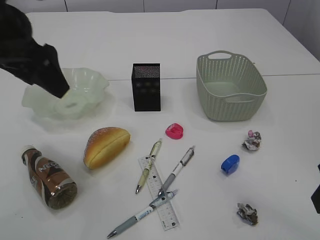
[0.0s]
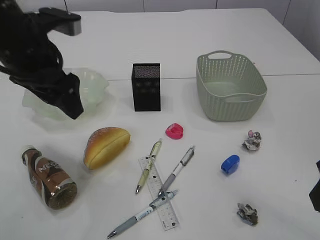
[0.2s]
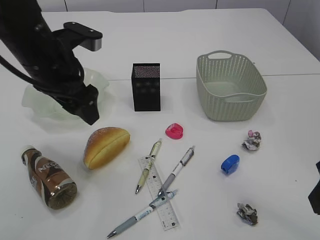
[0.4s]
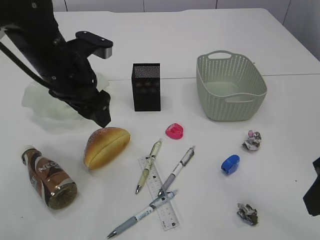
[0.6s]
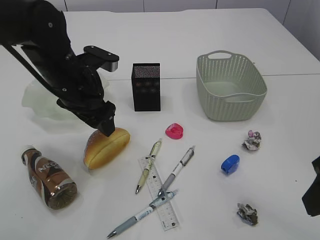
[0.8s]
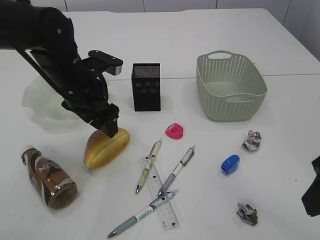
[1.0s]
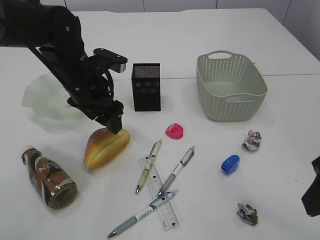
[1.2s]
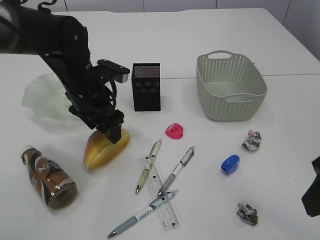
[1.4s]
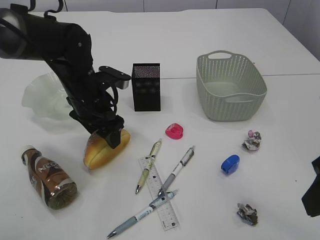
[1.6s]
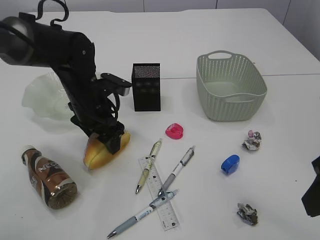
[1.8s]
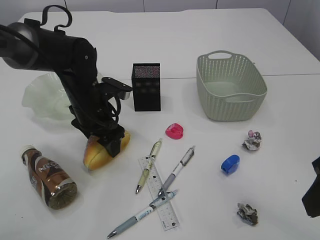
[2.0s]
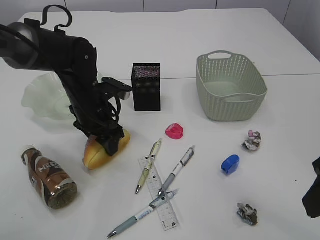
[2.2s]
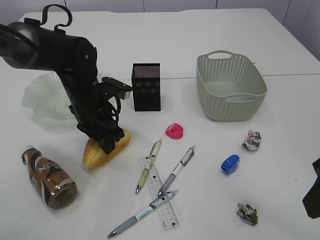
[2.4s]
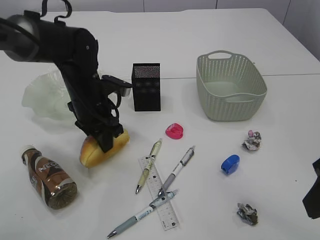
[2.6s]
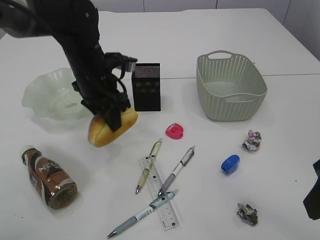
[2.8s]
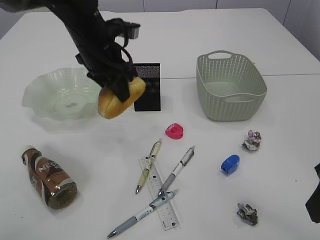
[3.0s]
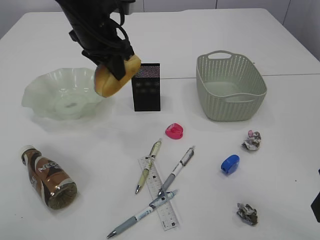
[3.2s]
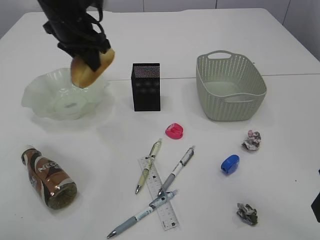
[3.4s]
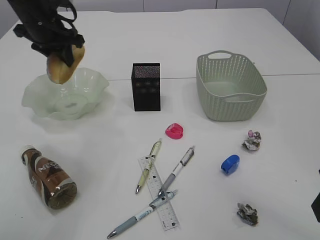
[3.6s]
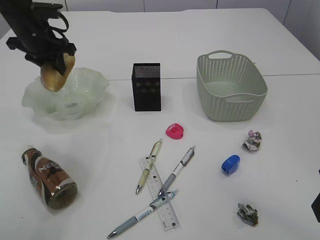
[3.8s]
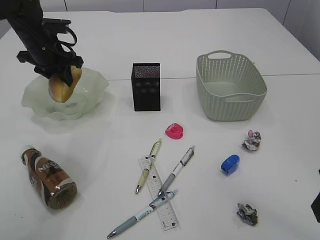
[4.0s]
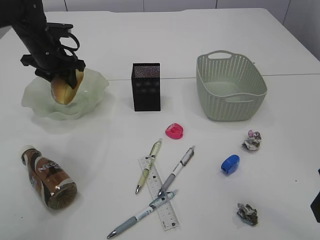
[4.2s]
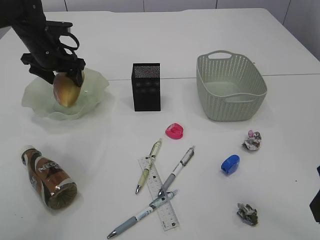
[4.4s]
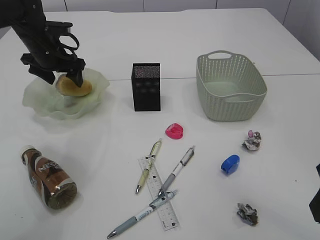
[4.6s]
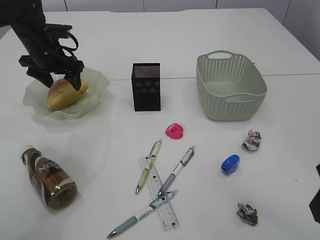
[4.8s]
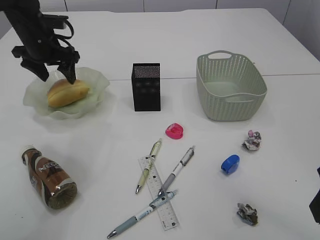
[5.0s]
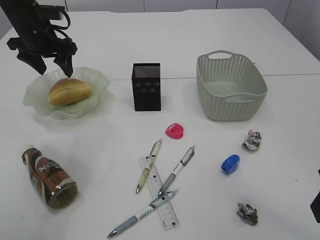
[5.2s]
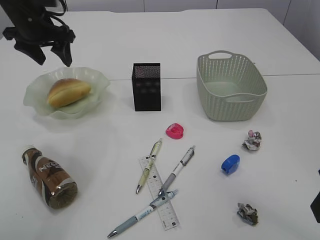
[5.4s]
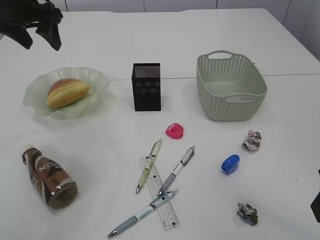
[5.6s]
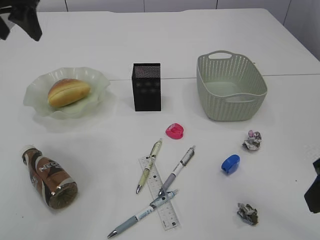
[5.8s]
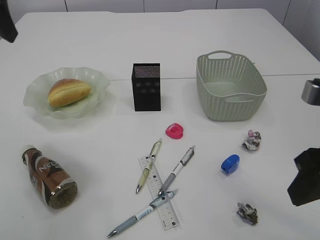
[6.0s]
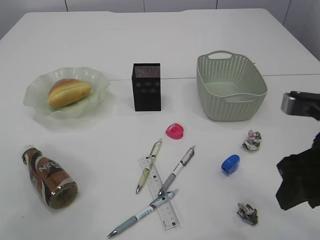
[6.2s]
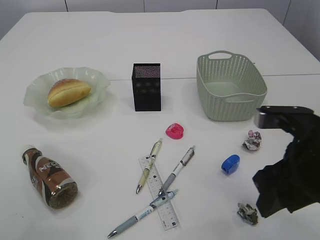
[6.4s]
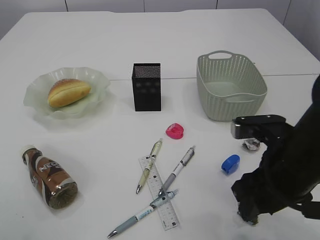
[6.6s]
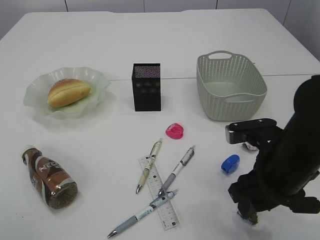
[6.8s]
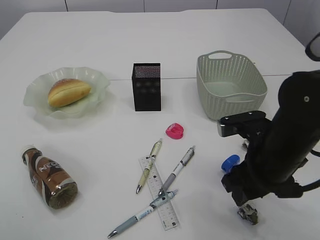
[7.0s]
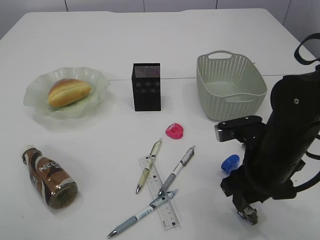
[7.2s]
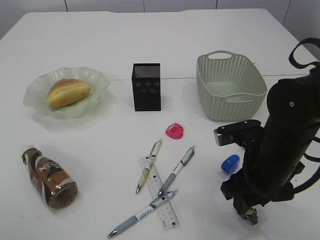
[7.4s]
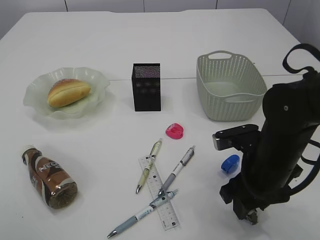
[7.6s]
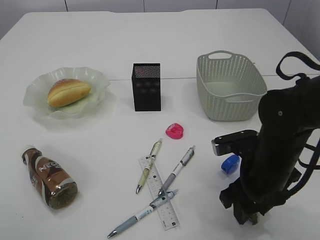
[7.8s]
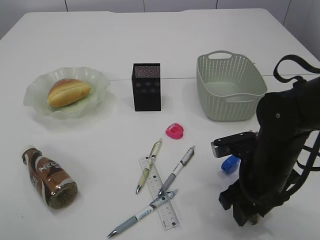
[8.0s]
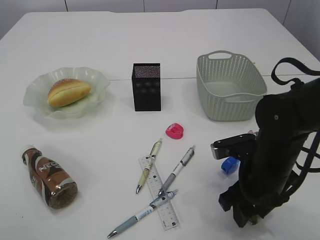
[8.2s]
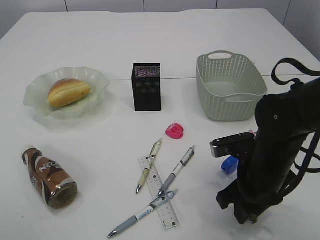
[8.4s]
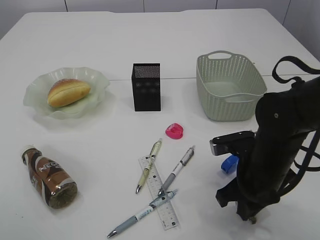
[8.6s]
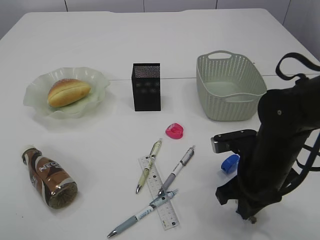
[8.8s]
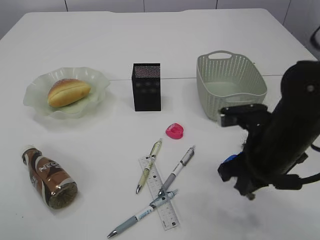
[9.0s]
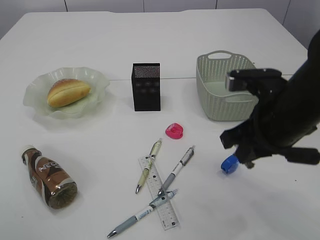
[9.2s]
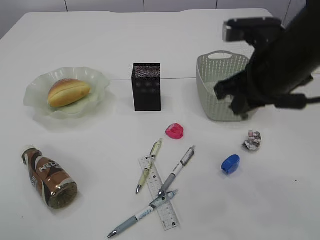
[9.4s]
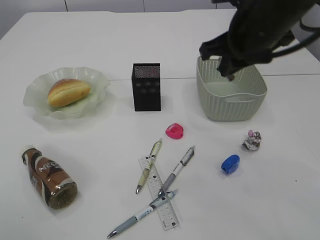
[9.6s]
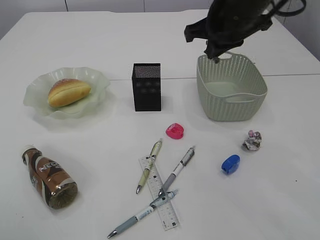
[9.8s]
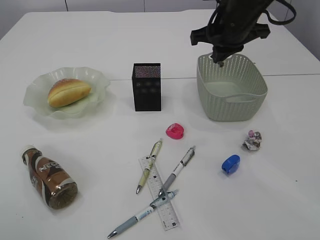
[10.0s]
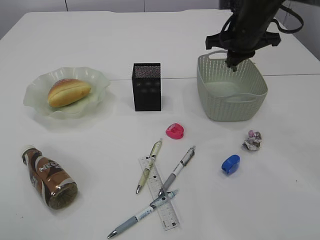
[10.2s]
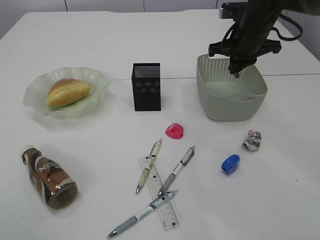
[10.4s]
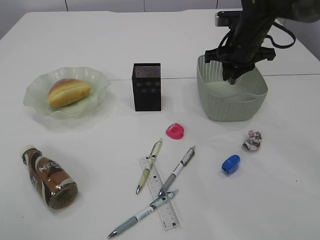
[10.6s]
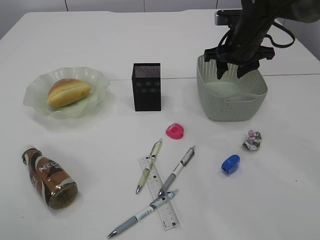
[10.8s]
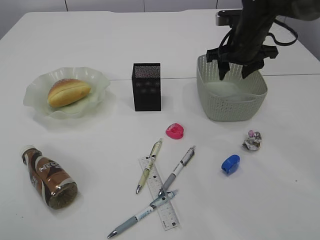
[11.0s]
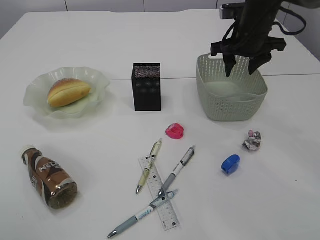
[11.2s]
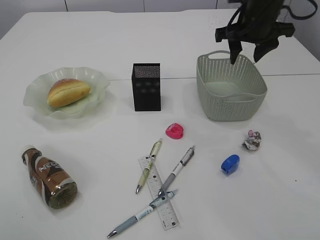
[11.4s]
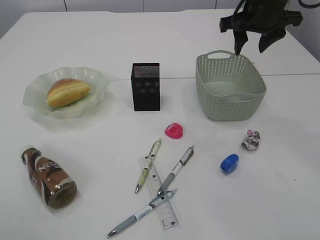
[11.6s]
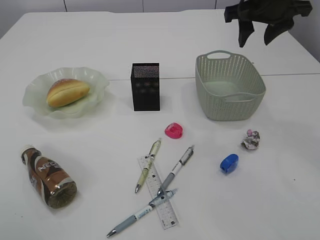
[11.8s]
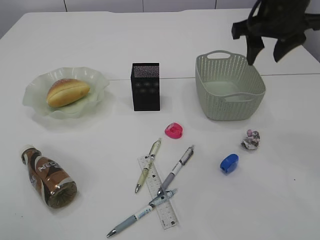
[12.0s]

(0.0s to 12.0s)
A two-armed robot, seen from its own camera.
Step, 2.8s - 5.4s: place the bread in the plate.
Step, 5.6s - 9.0s: Pick up the waste paper.
Step, 9.2s - 11.4s: Place the waste paper in the basket.
0.0s - 1.6s: The left gripper is displaced downward and forward by some 20 cm.
1.6s - 3.0s: The left gripper shifts about 10 cm upward, and closes its fingers.
3.0s - 4.4s: The left gripper is displaced to the left and forward by roughly 15 cm, and opens its fingers.
4.4s - 6.0s: The left gripper goes roughly 25 cm upward and backward.
6.0s - 7.6s: The left gripper shifts approximately 15 cm backward and upward, while the right gripper heads downward, forward and to the left, covering about 15 cm.
7.6s - 9.0s: The right gripper closes its fingers.
9.0s - 10.4s: The right gripper goes some 20 cm forward.
10.4s - 12.0s: The right gripper moves upward and backward, about 10 cm, and opens.

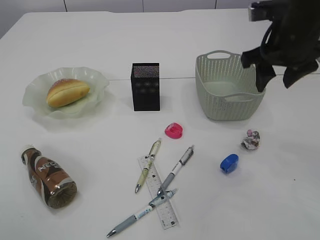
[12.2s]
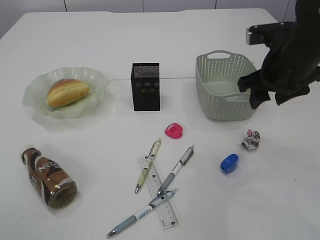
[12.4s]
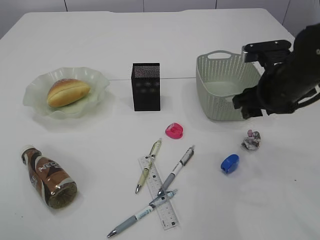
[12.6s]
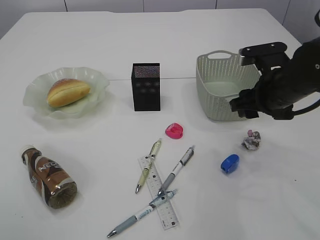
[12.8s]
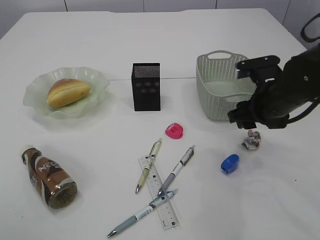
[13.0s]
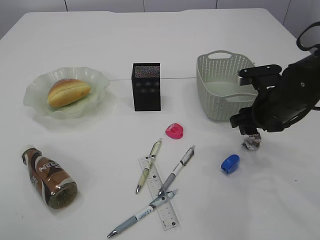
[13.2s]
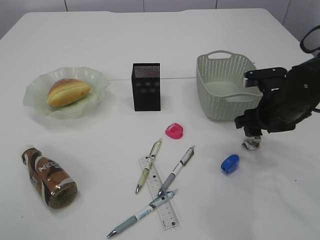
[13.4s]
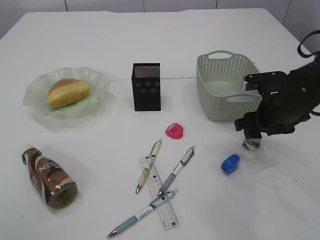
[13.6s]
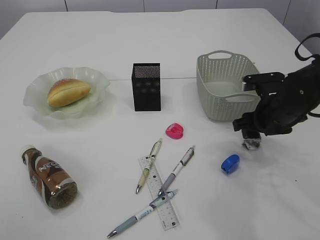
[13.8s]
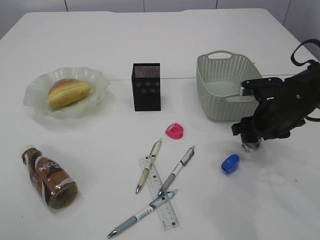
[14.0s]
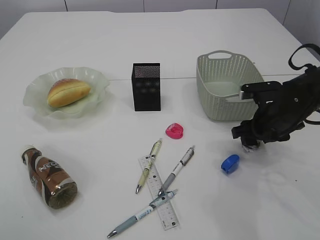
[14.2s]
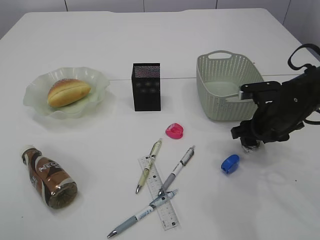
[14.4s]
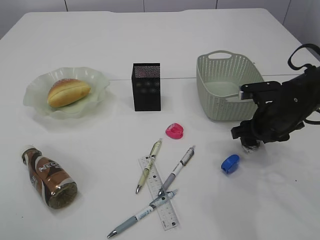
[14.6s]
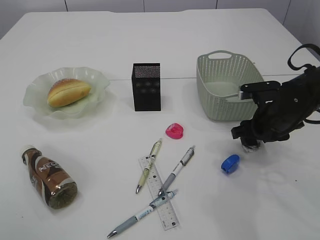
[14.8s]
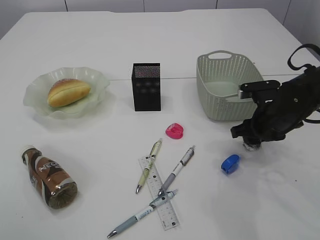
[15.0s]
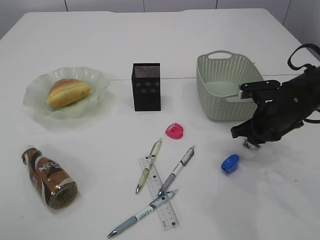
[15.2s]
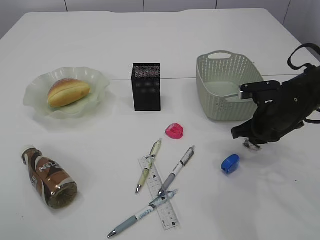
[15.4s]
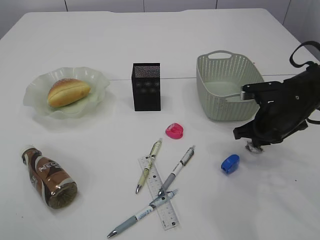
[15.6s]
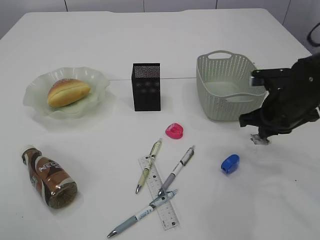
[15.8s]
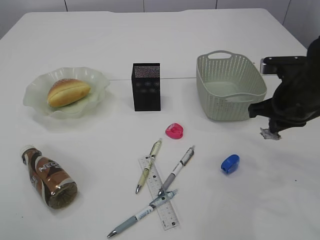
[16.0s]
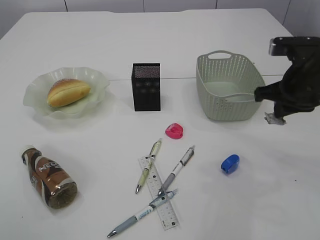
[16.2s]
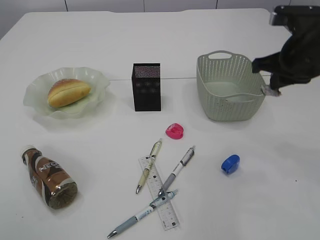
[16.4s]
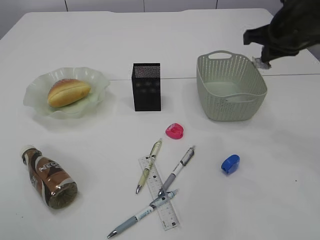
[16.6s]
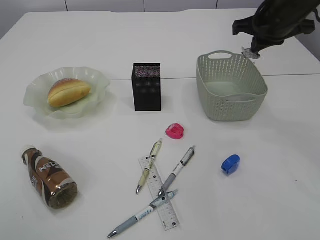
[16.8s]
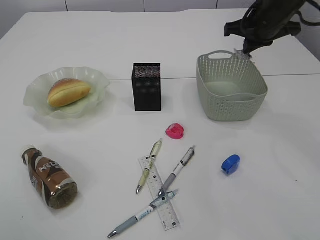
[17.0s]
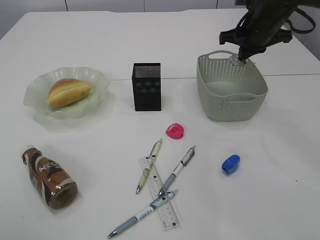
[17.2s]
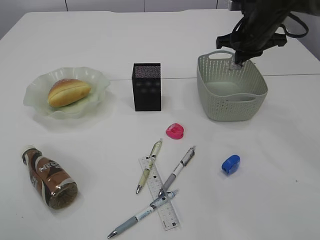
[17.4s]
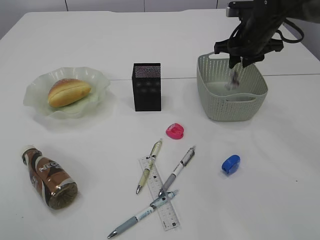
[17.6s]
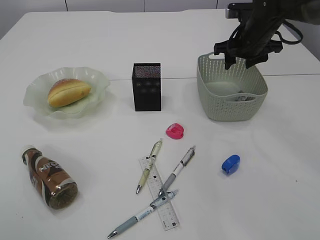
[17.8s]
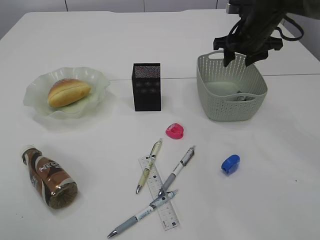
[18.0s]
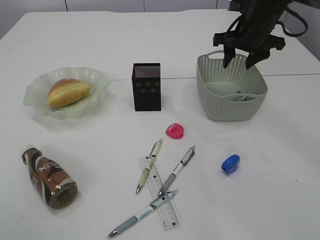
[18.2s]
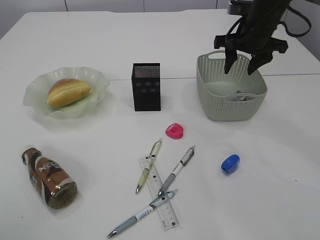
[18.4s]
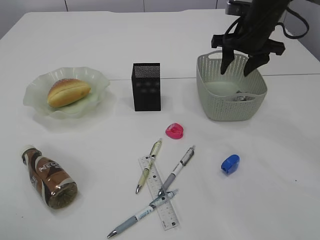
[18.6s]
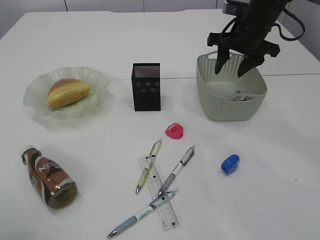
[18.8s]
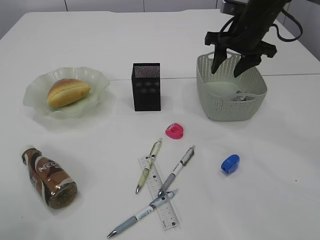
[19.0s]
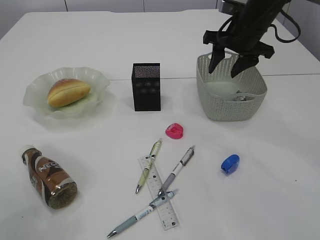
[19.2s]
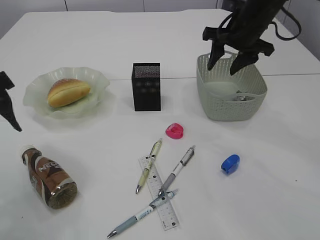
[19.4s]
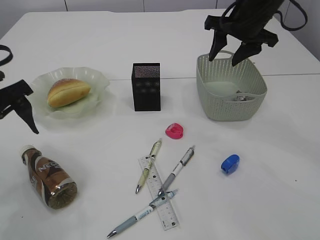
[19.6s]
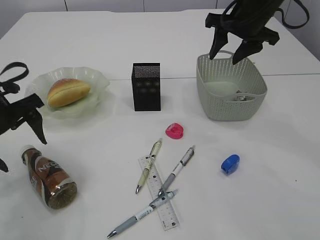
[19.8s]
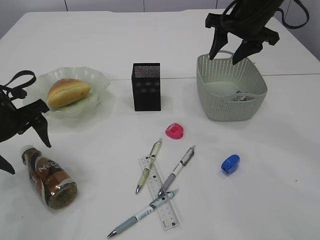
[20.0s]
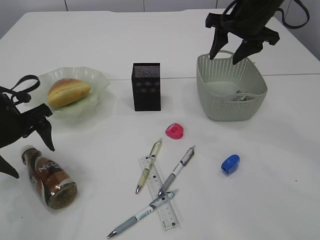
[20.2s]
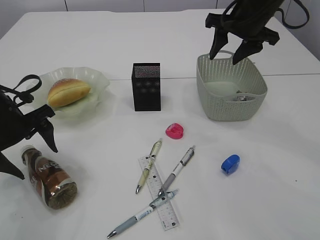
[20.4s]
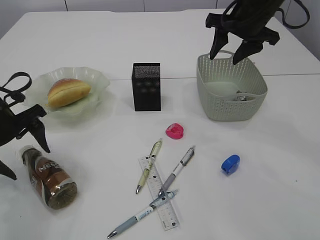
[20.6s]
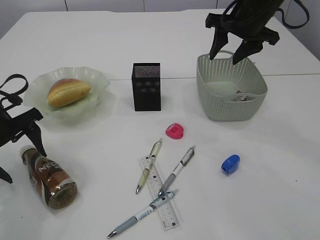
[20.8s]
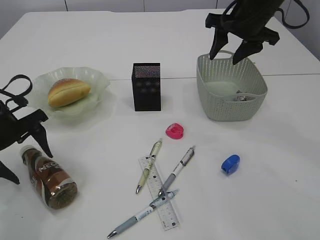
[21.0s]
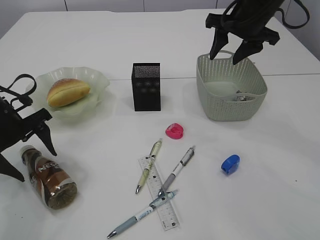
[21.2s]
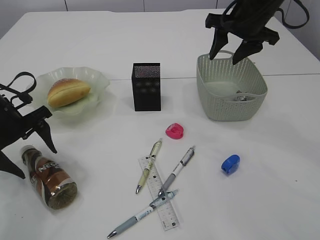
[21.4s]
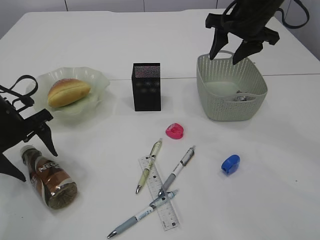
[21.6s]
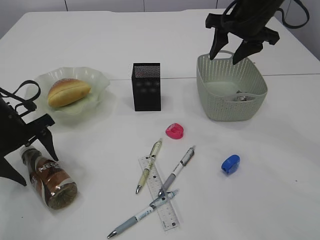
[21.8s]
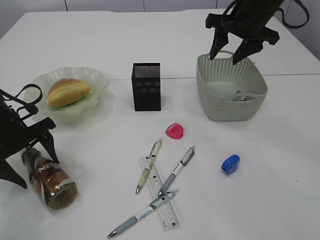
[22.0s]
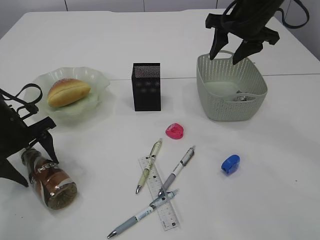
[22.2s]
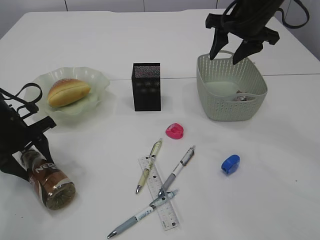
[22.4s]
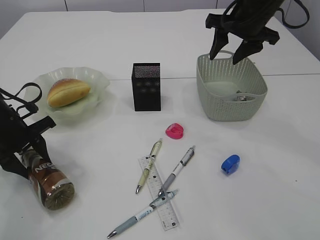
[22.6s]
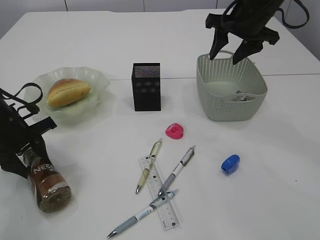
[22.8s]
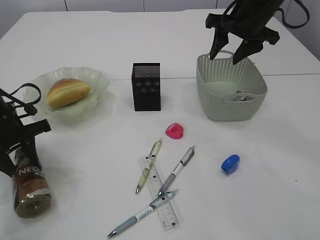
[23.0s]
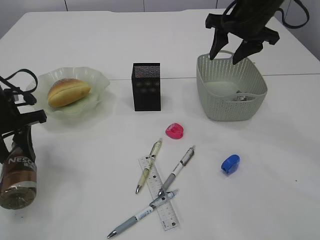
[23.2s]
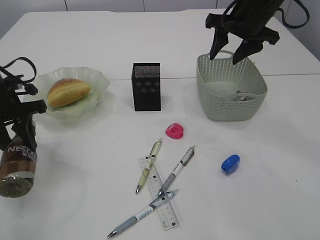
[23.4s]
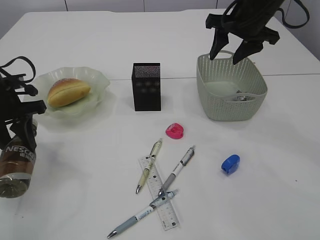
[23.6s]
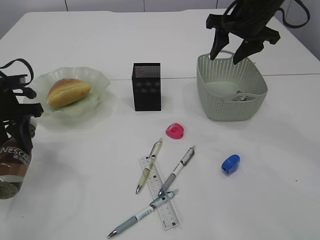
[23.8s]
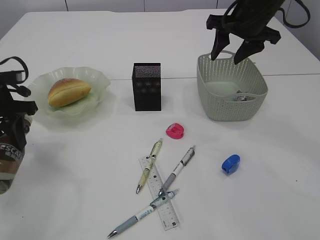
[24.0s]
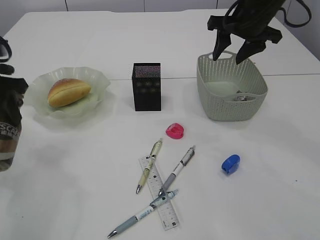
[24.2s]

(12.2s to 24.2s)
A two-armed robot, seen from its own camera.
Step, 12.2s - 16.0s: Pick up the waste paper.
Step, 16.2s - 18.2s: Place the waste paper in the basket.
Step, 18.4s - 23.4s: Pick up the bottle with the left arm.
12.2s - 13.8s: The right gripper shifts roughly 15 cm downward.
13.8s - 15.2s: The right gripper closes its fingers.
15.2s - 16.6s: The right gripper moves upward, some 20 cm.
16.6s - 18.2s: The right gripper travels forward by approximately 10 cm, and opens its fingers.
18.2s - 19.8s: The left gripper goes about 25 cm downward and forward.
19.8s - 21.2s: The left gripper heads downward, covering some 5 cm.
21.2s - 22.6s: The left gripper closes its fingers.
22.6s - 24.2s: The left gripper heads upward, covering approximately 10 cm.
